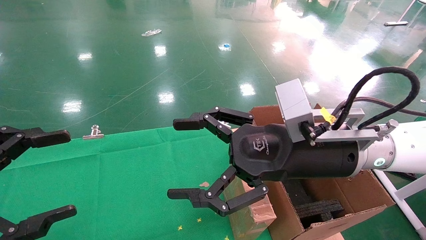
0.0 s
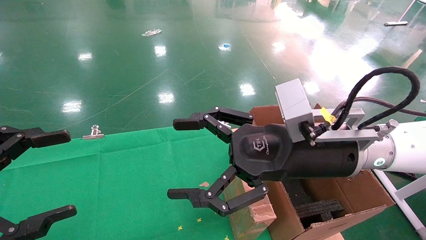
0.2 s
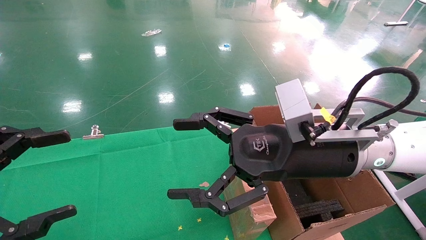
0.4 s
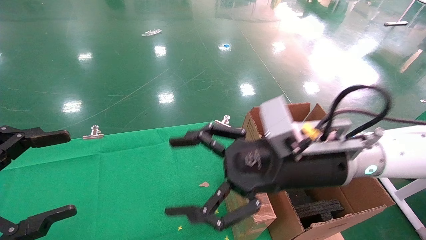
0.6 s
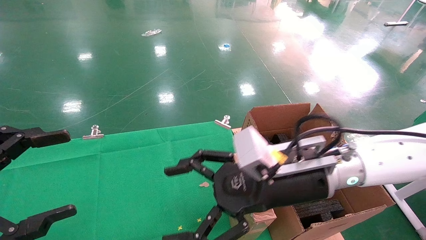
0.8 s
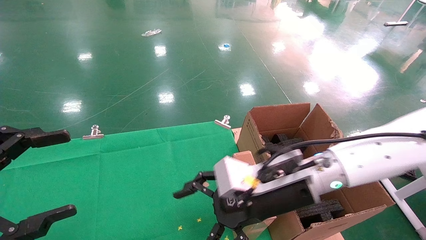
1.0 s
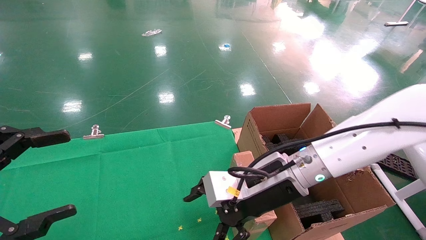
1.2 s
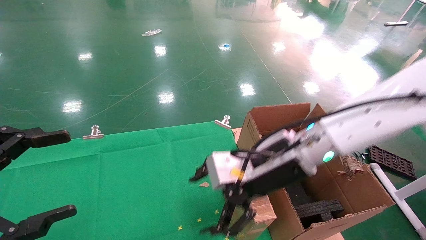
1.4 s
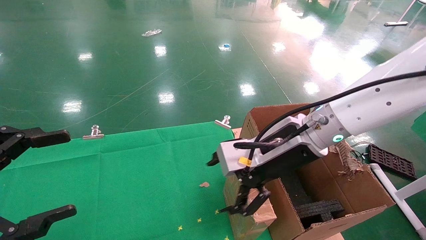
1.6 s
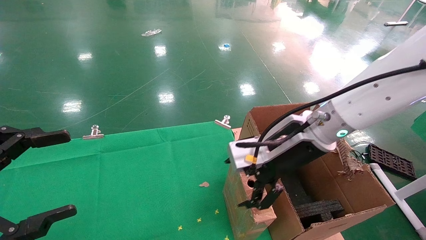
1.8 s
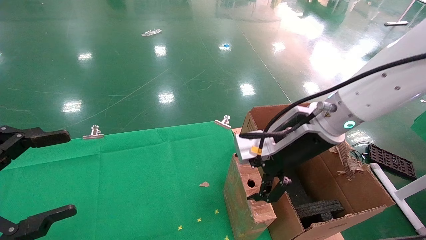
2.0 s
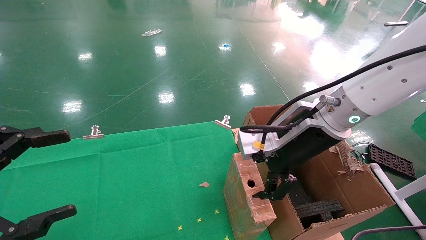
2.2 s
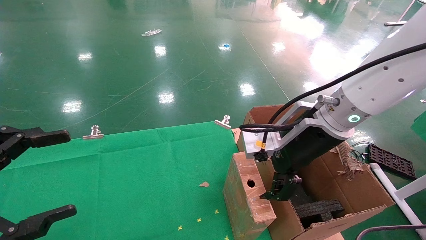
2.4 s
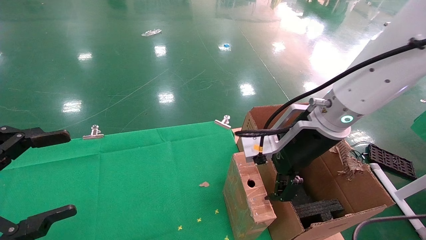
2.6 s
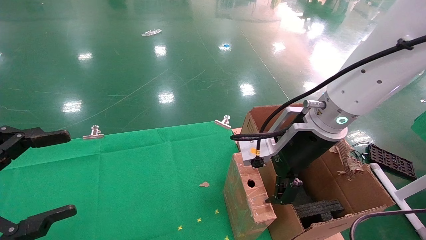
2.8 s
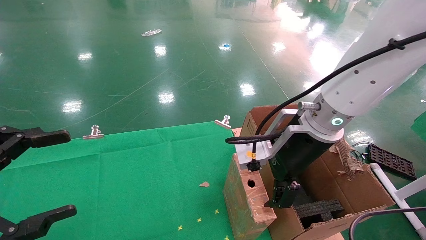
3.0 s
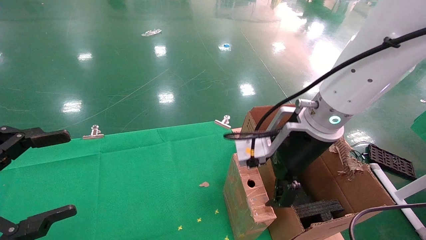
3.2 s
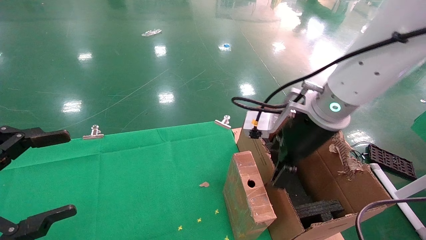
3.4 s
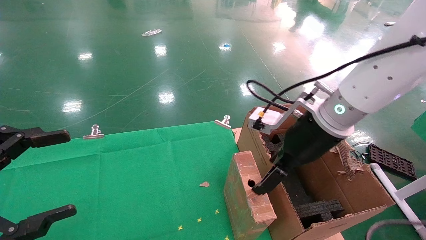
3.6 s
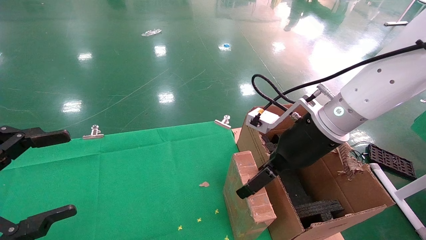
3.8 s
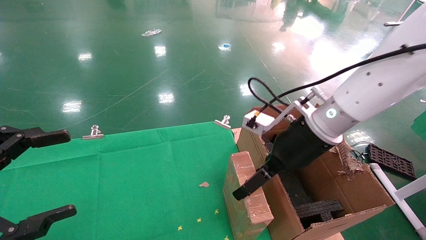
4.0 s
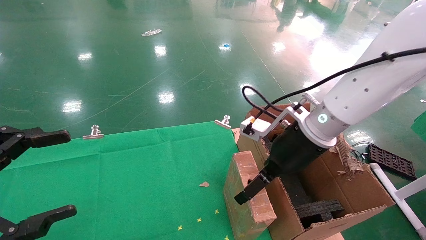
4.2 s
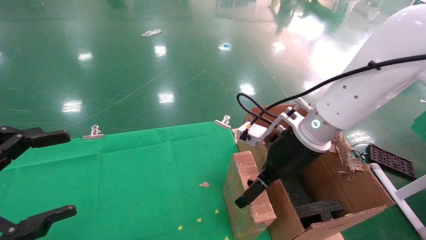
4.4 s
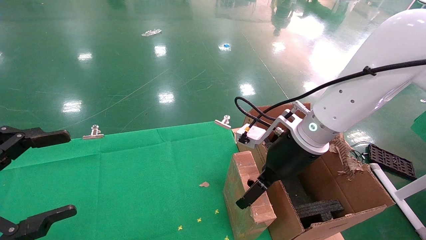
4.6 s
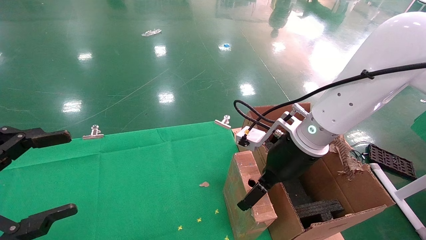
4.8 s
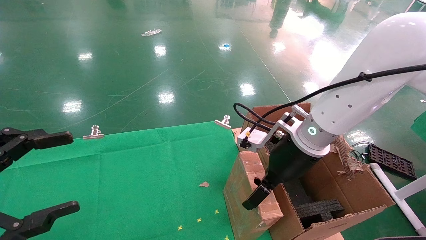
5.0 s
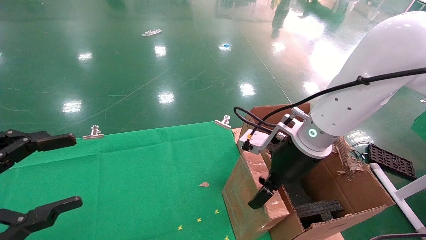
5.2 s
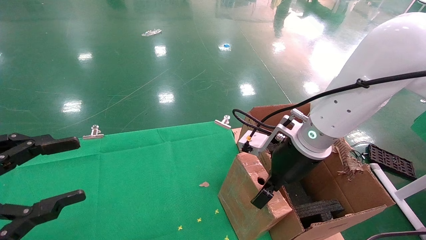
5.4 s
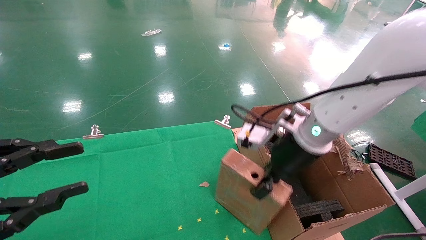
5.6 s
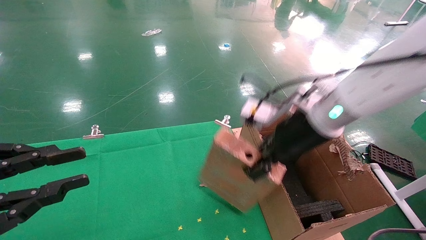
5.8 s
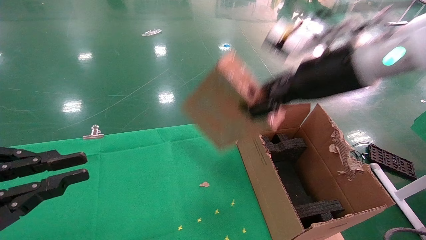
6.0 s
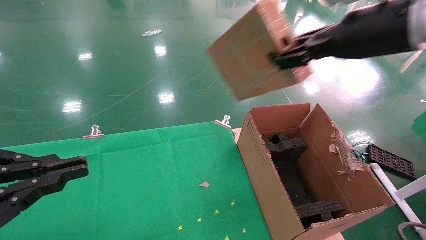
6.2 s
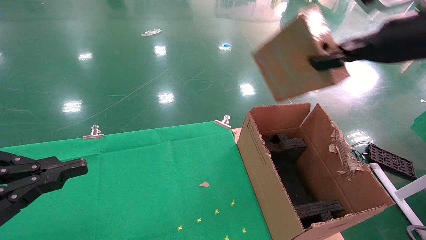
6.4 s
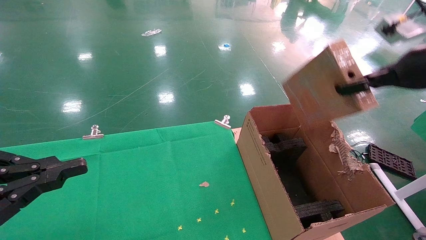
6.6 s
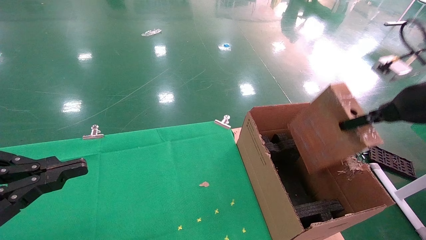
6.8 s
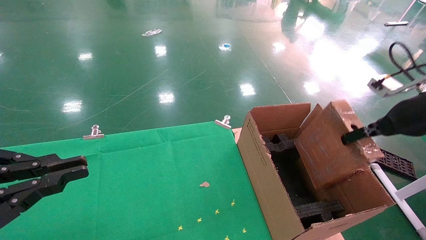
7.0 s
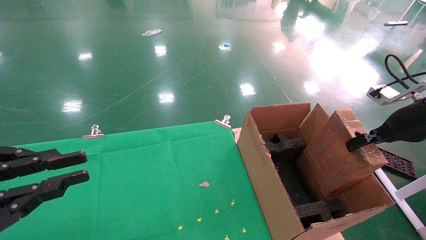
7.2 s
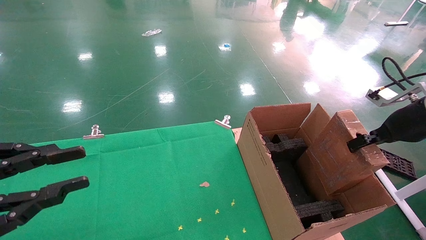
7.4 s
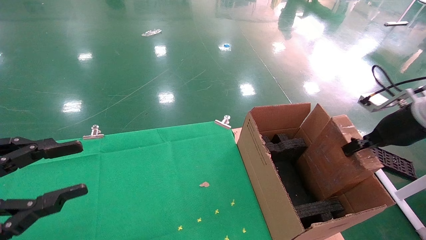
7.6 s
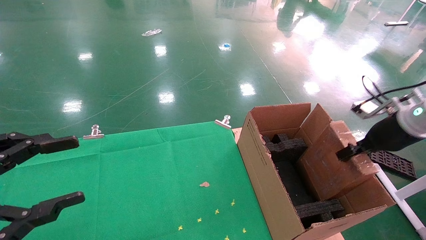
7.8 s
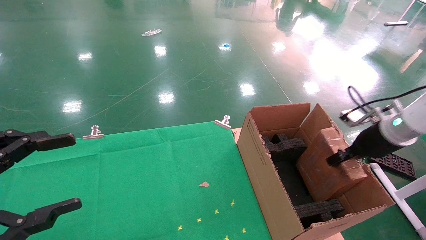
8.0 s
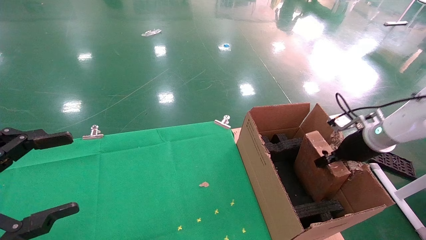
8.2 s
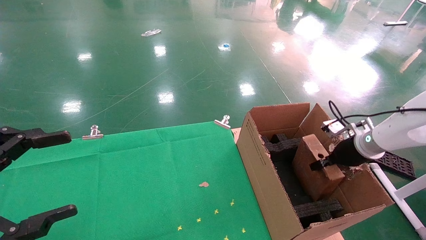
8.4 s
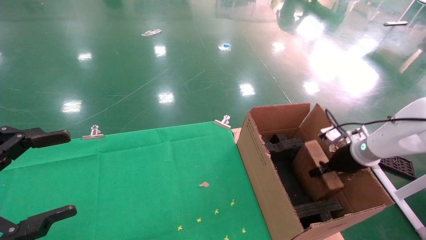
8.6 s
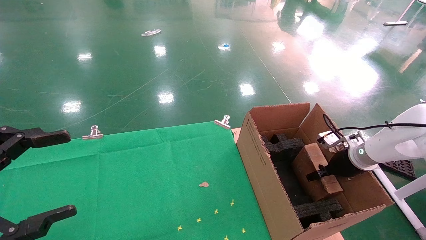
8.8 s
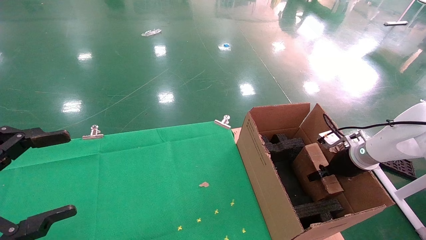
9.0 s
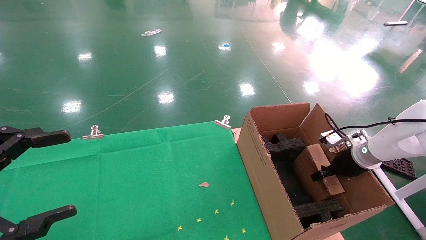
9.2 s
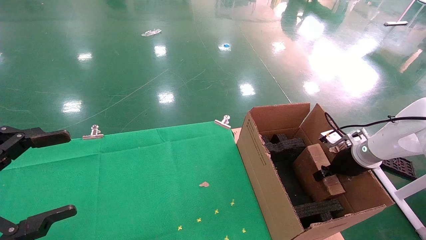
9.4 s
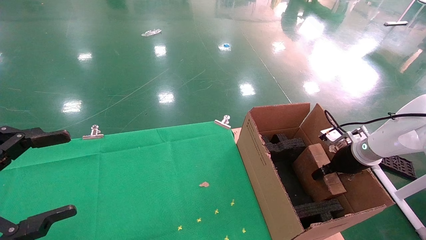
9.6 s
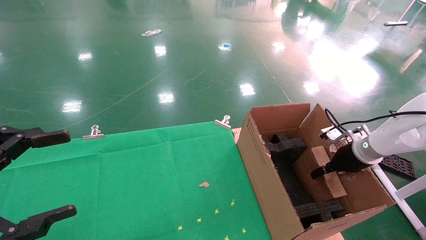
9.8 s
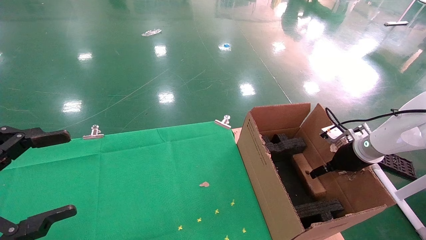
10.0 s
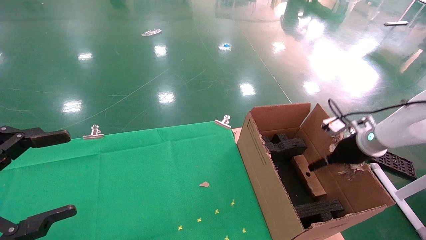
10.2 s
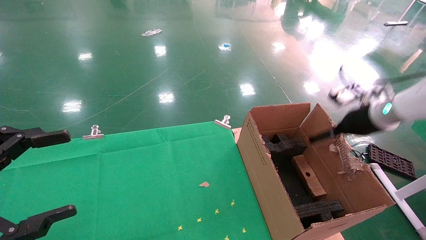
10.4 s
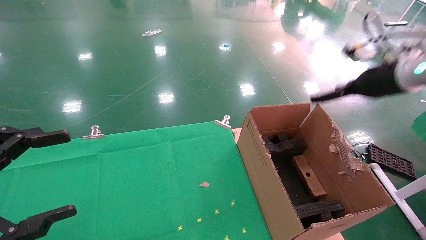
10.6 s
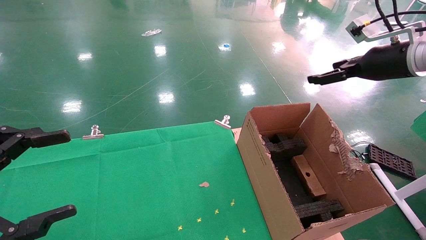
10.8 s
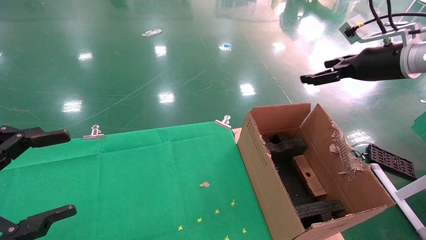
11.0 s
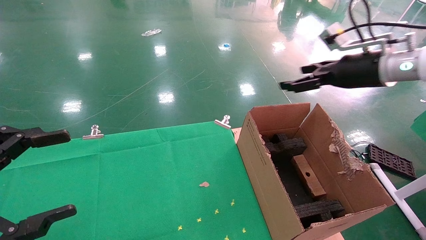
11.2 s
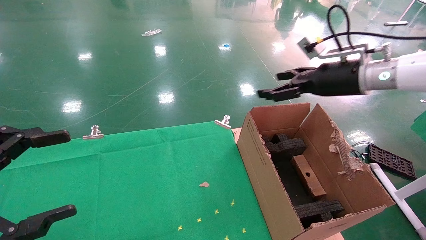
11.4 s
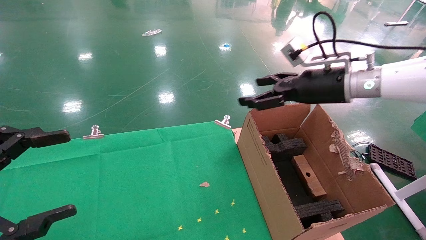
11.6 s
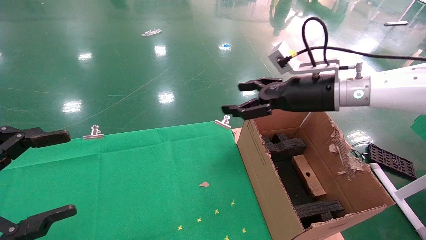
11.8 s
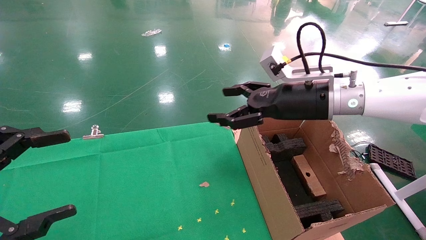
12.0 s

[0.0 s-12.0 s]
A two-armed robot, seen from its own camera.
Task of the whole recording: using a robotic arm to pick up a cardboard box and palace it the carton.
Step, 0.6 to 5.6 s: Pick up the mouse and the power cord paper box.
Step, 5.8 to 10.0 s: Place the mouse and the power cord paper box into the container.
0.0 to 1.6 s: The right gripper moves forward, about 5 cm.
4.4 to 6.0 s: The left gripper closes its fingers. Meanwhile the right gripper is displaced upward by some 10 cm, and closes up.
6.0 to 7.6 s: The right gripper goes about 25 cm to the right and downward.
7.6 to 9.0 s: The left gripper opens up. The right gripper goes roughly 15 cm downward and forward.
9.0 to 10.4 s: The right gripper moves upward, some 15 cm, and opens up.
10.4 to 12.0 s: The right gripper shifts some 20 cm to the left.

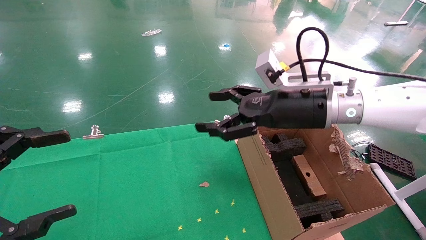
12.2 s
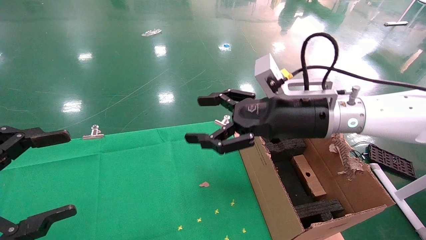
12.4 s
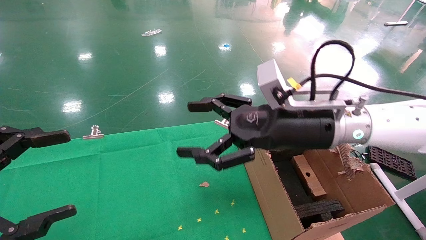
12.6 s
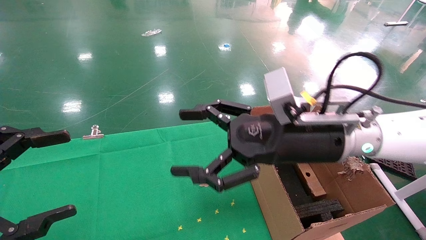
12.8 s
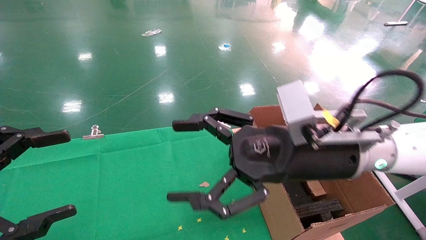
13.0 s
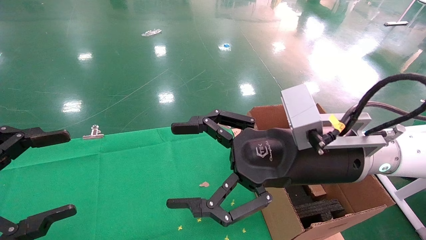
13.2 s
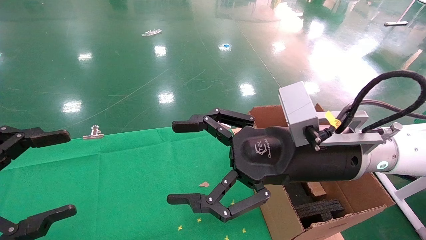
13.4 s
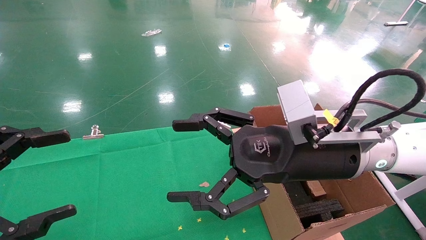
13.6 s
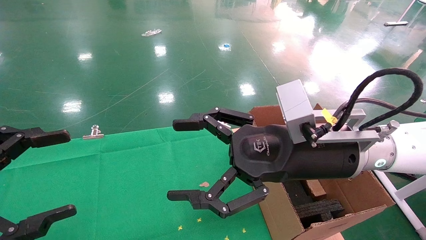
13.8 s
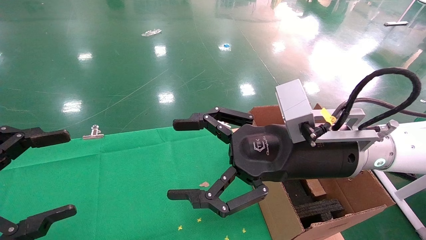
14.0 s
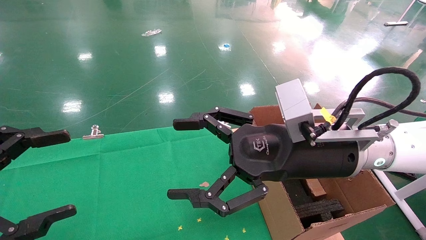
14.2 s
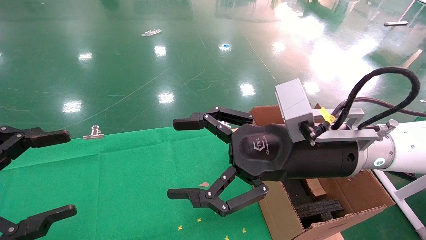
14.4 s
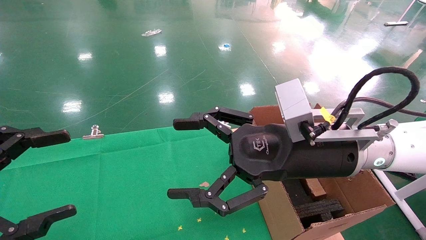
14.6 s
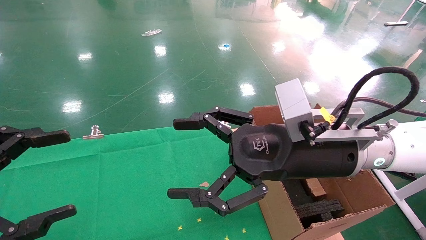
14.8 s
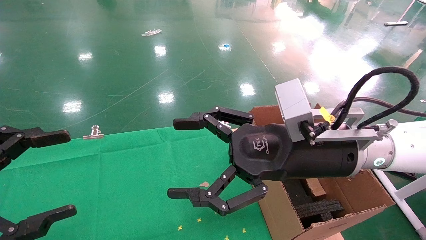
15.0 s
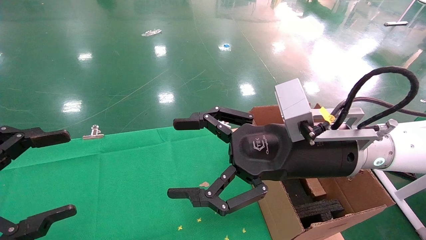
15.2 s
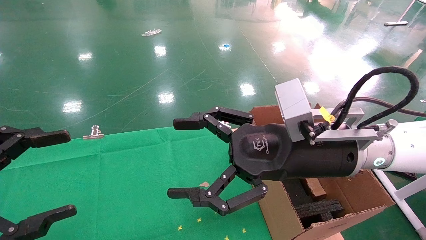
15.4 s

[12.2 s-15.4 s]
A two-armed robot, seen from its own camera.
Task of the whole recording: using a robotic arm to pick up a cardboard box and palace it the carton.
12.2 to 13.8 s: The right gripper goes approximately 10 cm backward.
13.8 to 15.4 s: The two grippers keep their place.

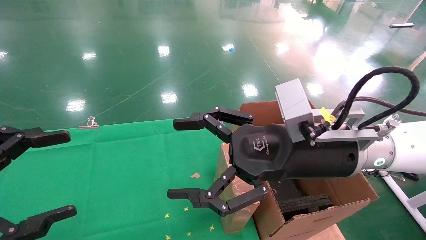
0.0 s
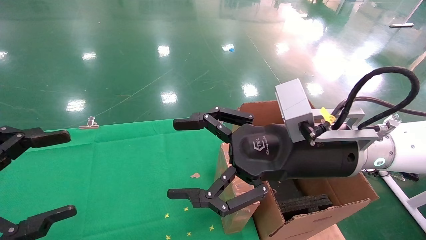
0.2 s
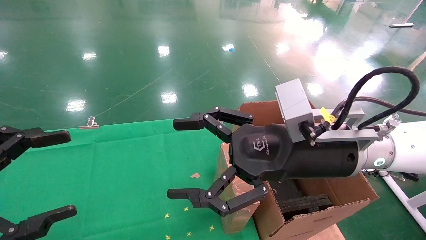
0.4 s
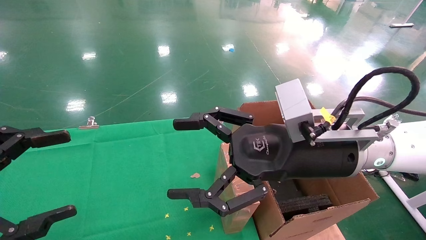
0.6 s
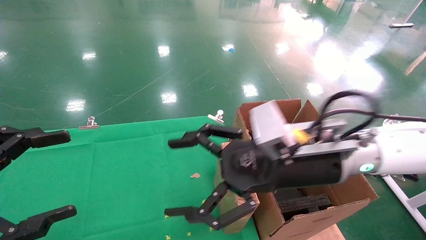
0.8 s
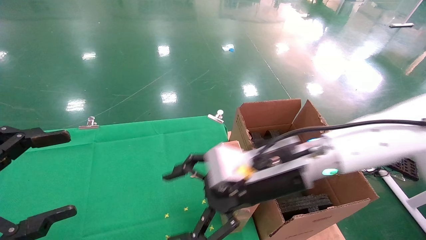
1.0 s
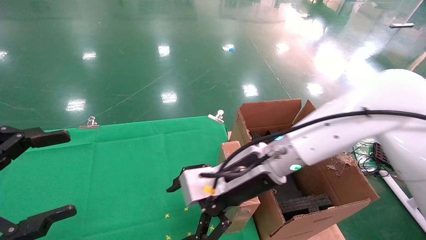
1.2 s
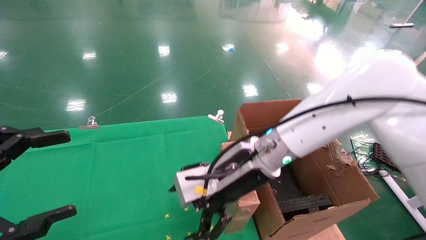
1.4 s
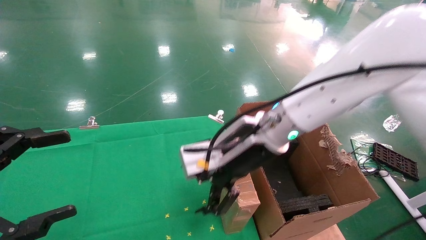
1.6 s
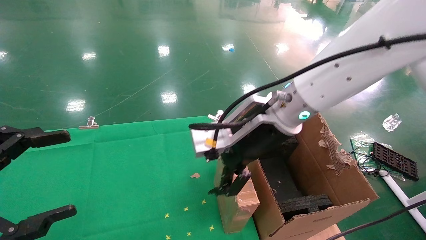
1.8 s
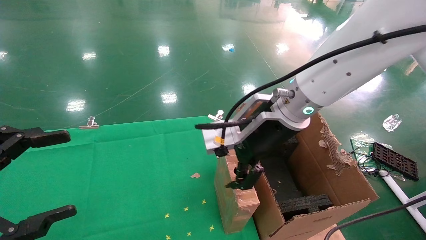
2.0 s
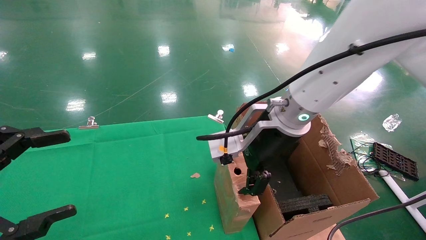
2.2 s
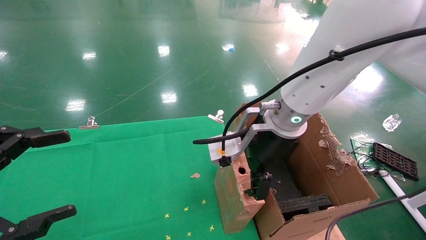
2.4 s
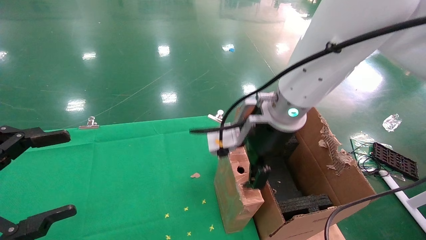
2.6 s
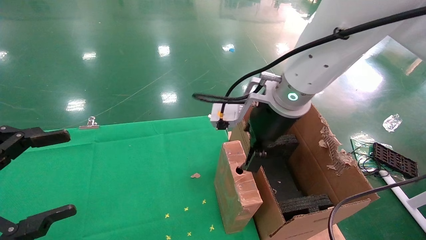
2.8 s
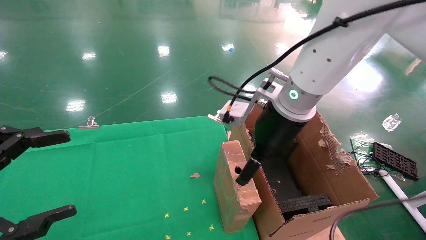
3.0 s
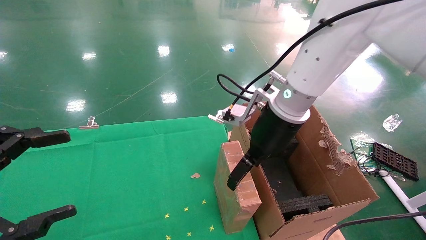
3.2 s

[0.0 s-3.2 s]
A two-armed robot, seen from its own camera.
Task of the whole recording: using a robotic arm to pick up a cardboard box and palace it the carton.
0.0 to 1.6 s: The right gripper travels forward and to the left by some 10 cm.
1.6 to 3.2 s: The right gripper moves approximately 5 cm.
